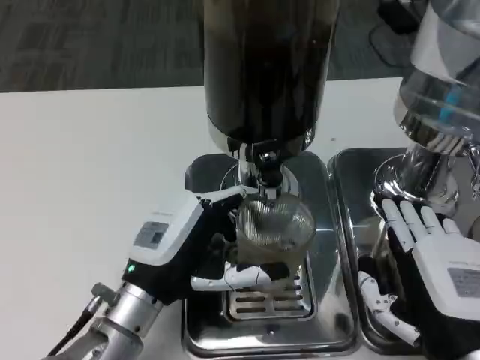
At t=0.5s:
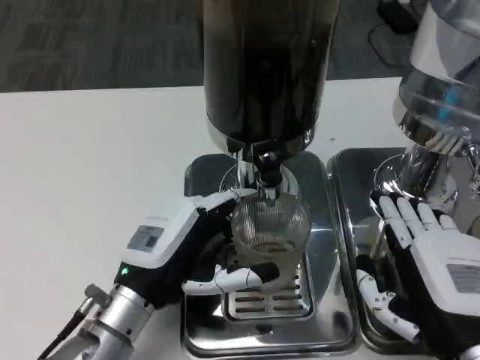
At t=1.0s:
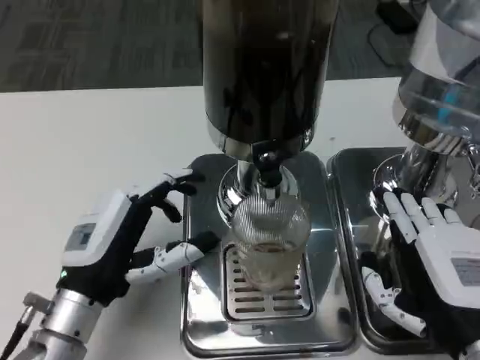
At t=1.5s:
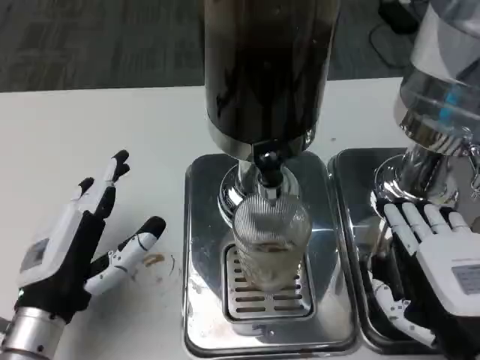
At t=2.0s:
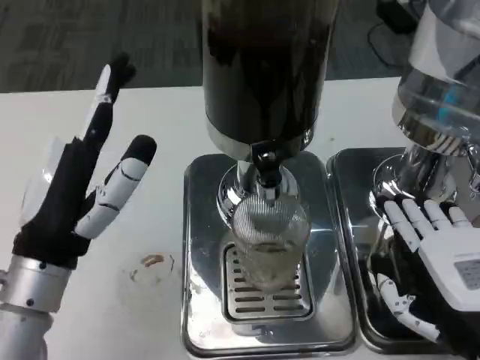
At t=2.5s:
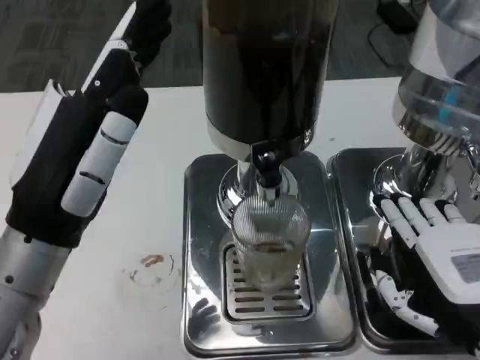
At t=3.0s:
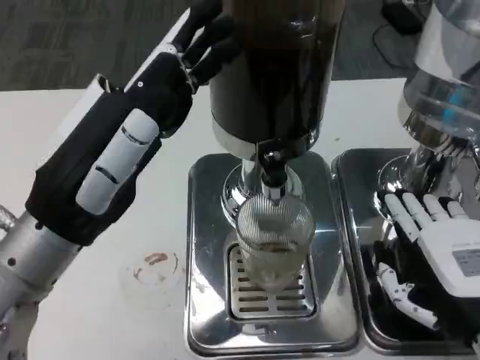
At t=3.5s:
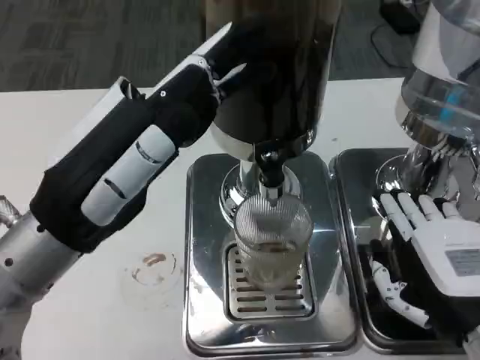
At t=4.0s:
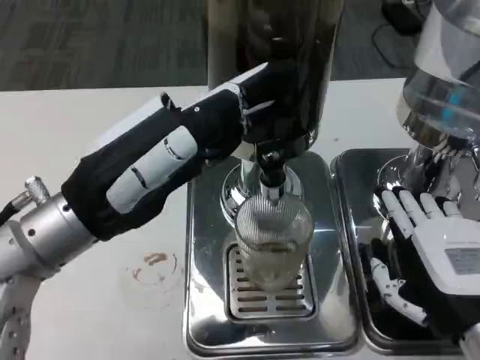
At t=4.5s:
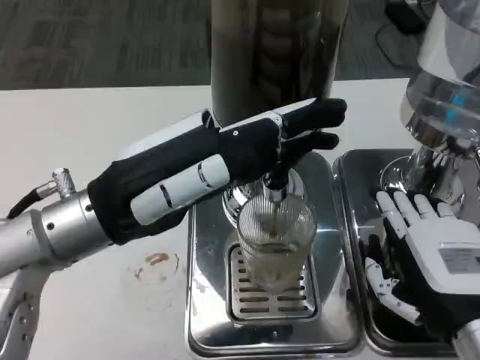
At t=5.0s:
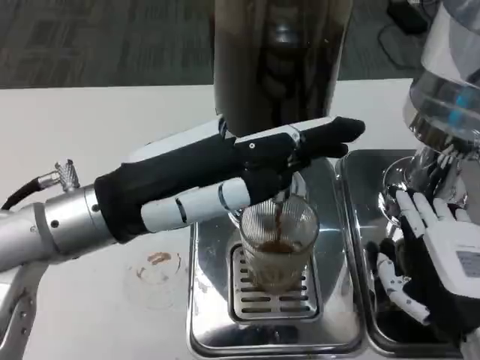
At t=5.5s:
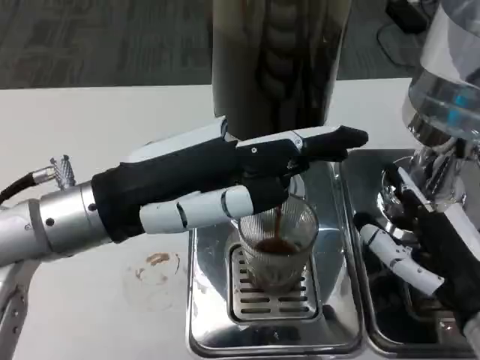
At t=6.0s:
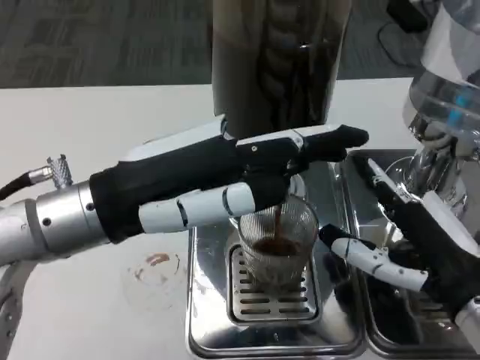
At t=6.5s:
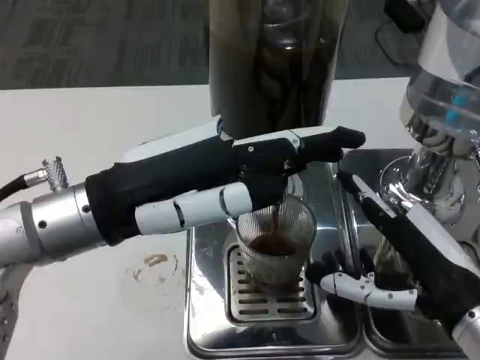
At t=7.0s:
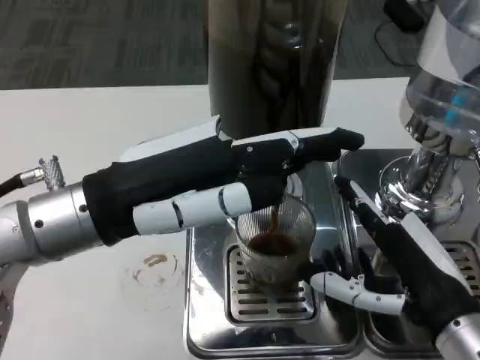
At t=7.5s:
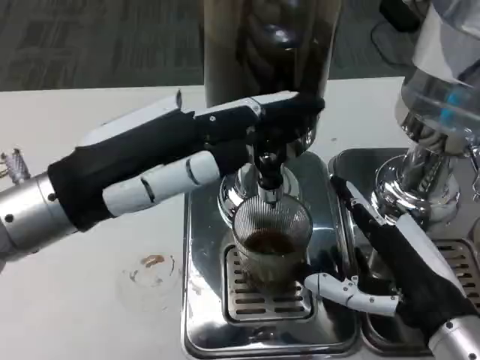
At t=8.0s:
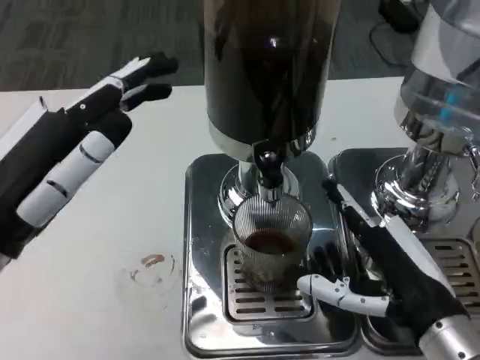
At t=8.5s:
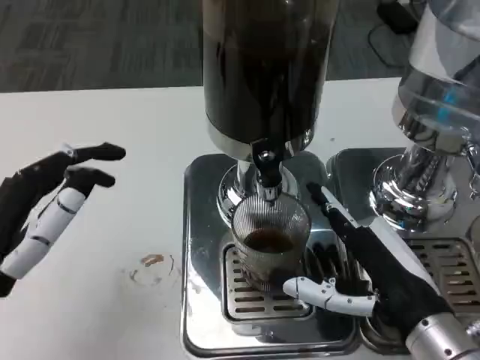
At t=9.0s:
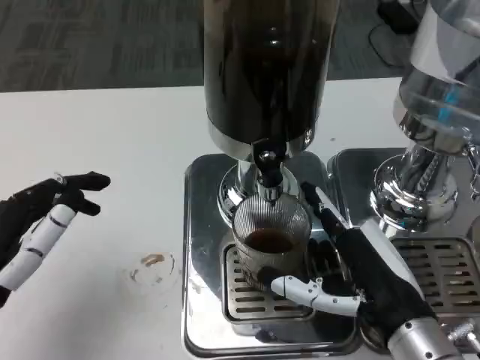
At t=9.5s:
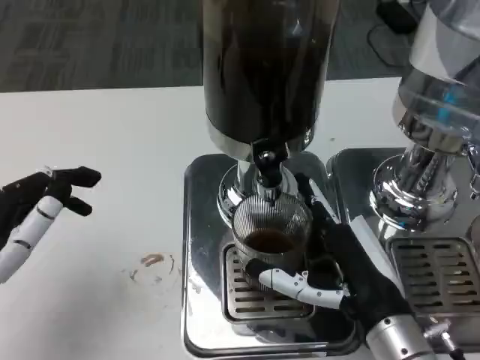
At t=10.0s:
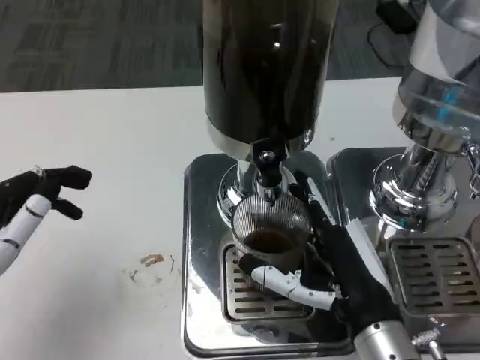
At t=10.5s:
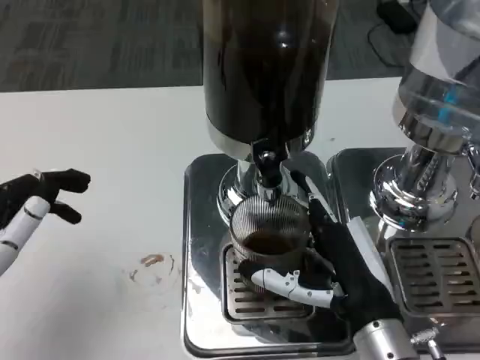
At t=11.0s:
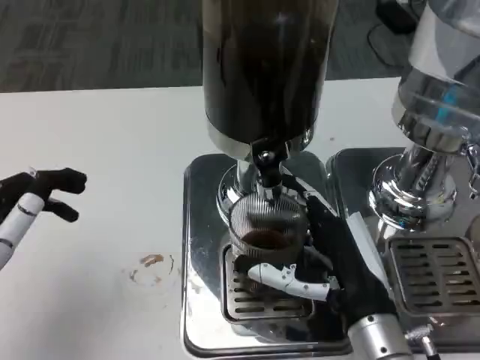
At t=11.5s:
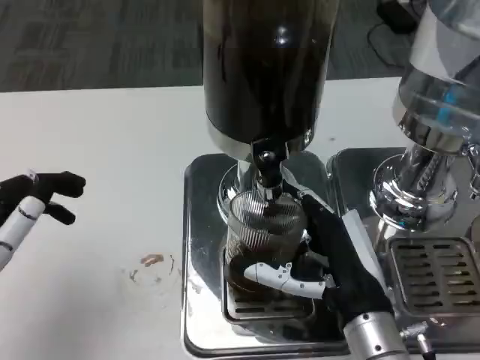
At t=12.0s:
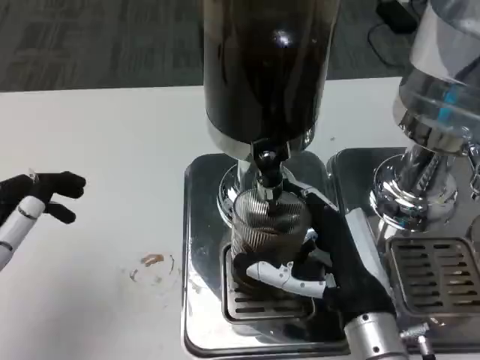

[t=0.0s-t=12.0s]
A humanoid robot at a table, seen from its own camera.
Task of the whole recording: Grasp the cup under the faucet to collect the drink, then remove the cup.
t=0.0s to t=2.0s: The left hand heads upward and to the left, covering some 10 cm.
t=2.0s to t=4.0s: The left hand moves upward, approximately 5 cm.
t=6.0s to t=8.0s: The left hand heads to the left and backward, covering roughly 10 cm.
t=8.0s to t=10.0s: The right hand moves to the left, about 5 cm; the left hand heads downward, covering roughly 5 cm.
t=10.0s to t=12.0s: The hands make only small movements.

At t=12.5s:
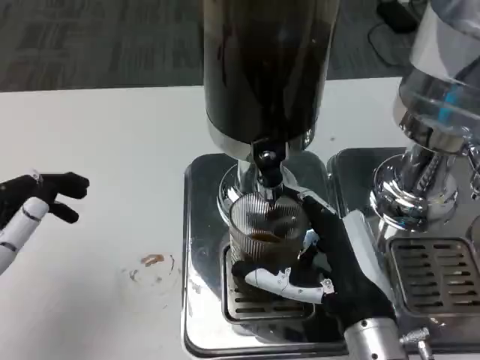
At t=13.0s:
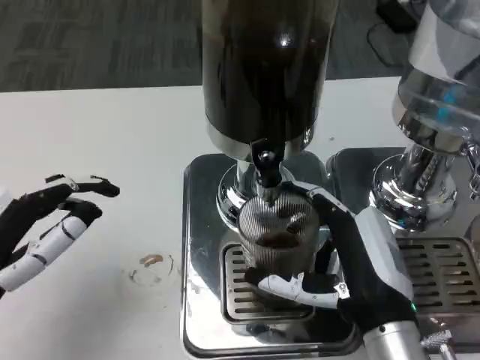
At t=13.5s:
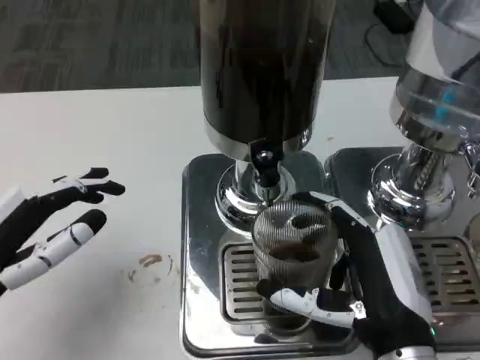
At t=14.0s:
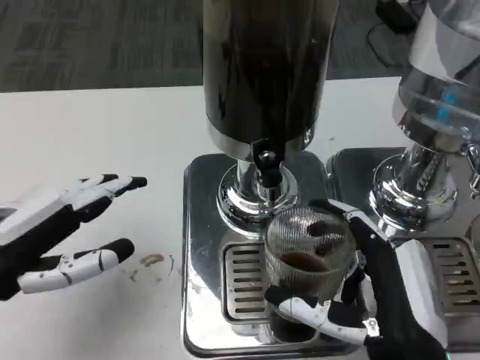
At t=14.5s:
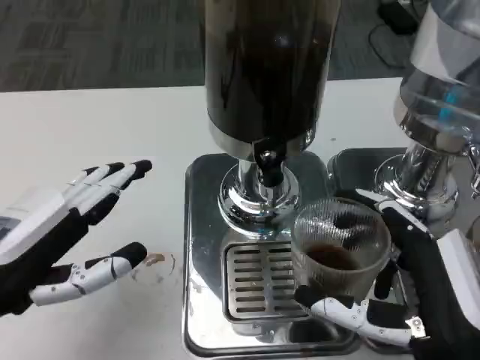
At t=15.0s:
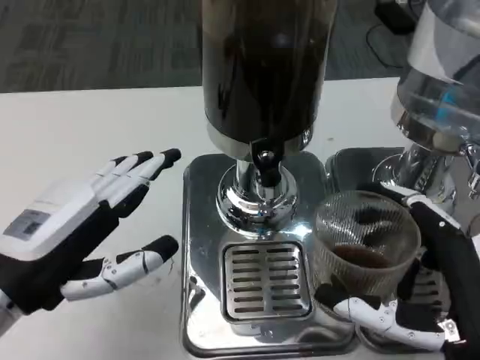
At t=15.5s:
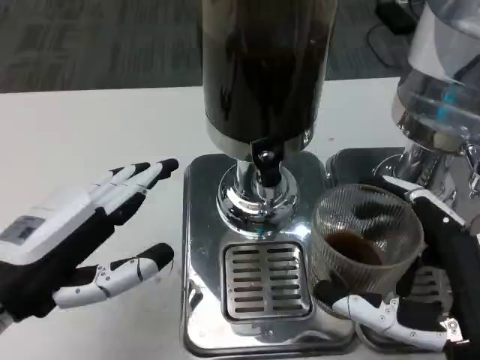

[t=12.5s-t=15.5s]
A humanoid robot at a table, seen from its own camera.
Task of the whole recording: Grasp the cup under the faucet to collect the drink, then remove the cup.
t=12.5s to t=14.0s: The right hand moves backward, roughly 5 cm.
t=14.0s to t=15.5s: The right hand goes about 5 cm upward.

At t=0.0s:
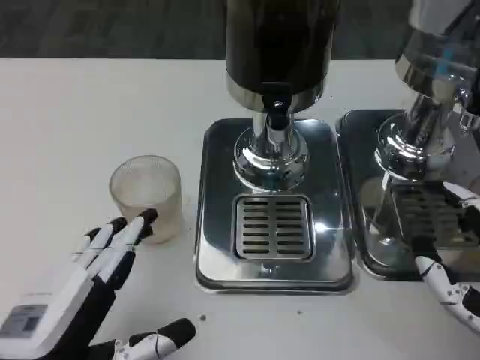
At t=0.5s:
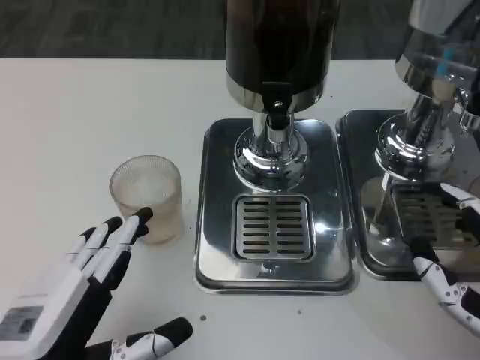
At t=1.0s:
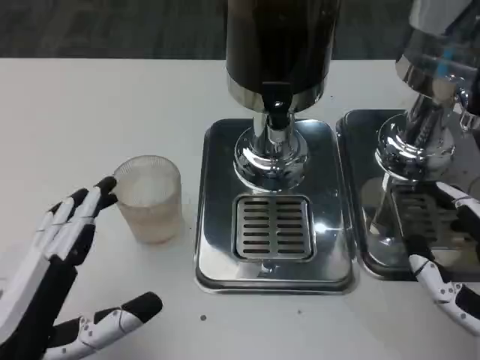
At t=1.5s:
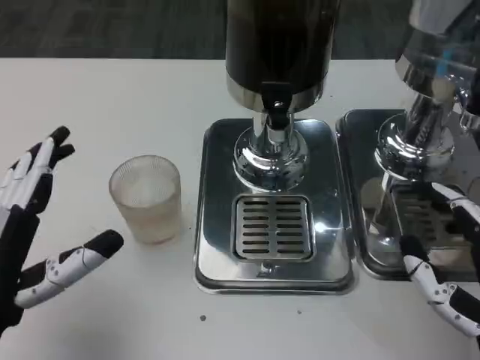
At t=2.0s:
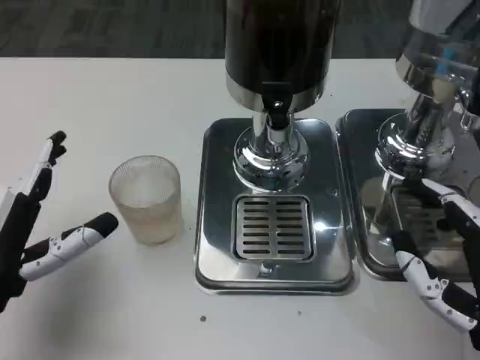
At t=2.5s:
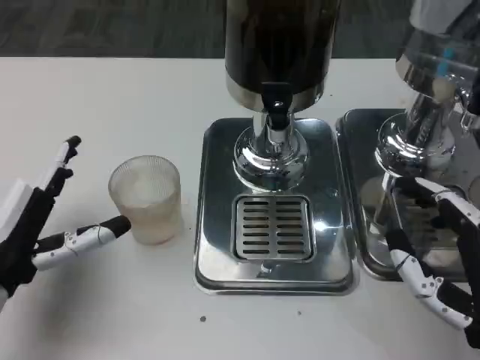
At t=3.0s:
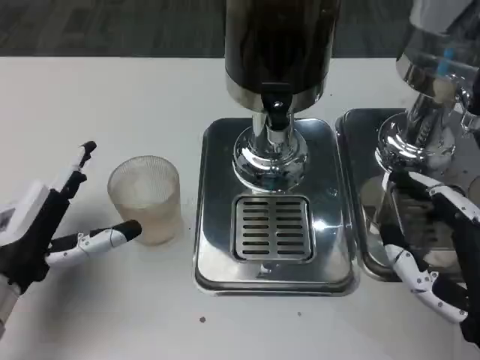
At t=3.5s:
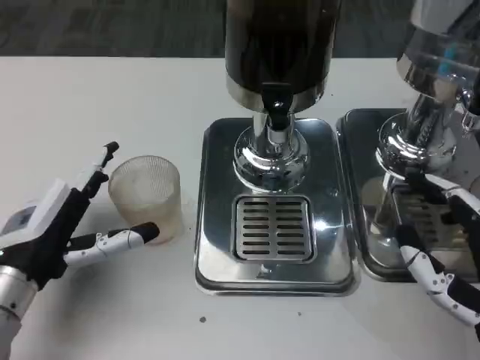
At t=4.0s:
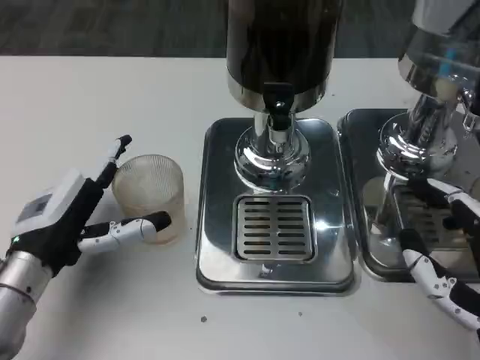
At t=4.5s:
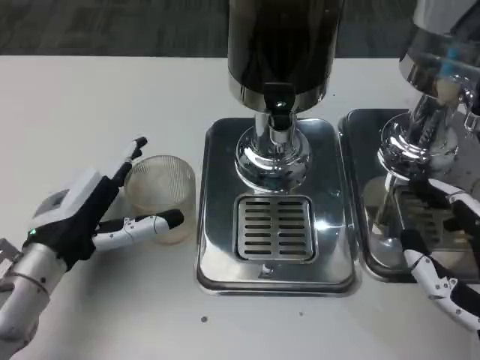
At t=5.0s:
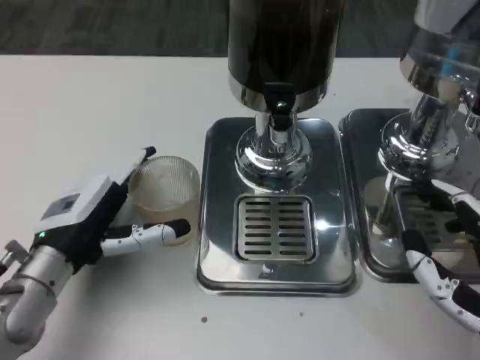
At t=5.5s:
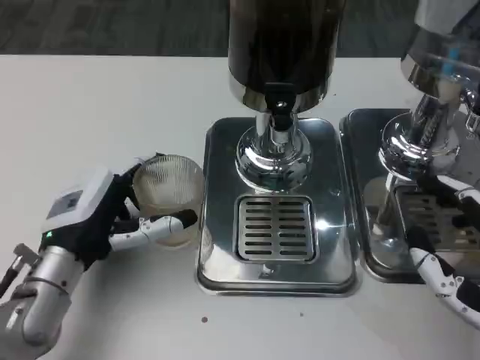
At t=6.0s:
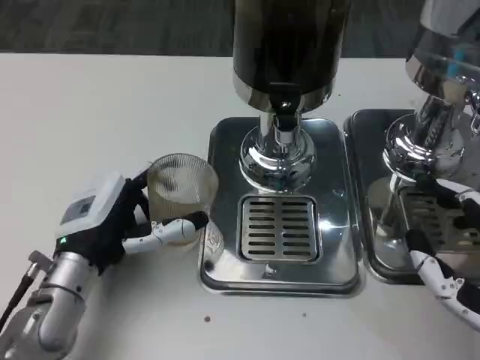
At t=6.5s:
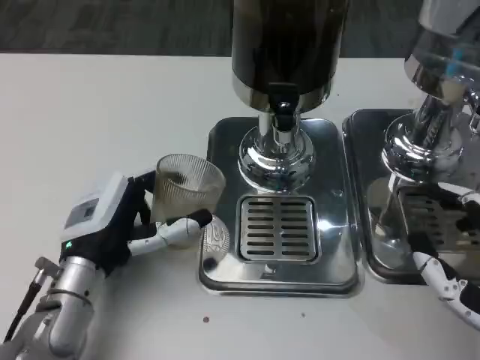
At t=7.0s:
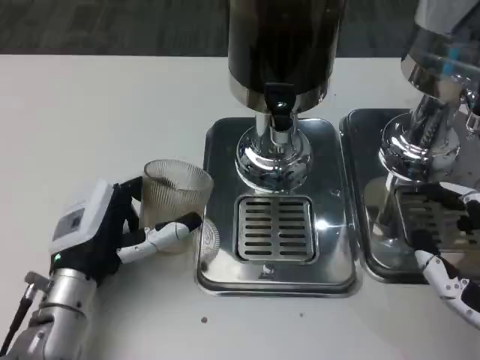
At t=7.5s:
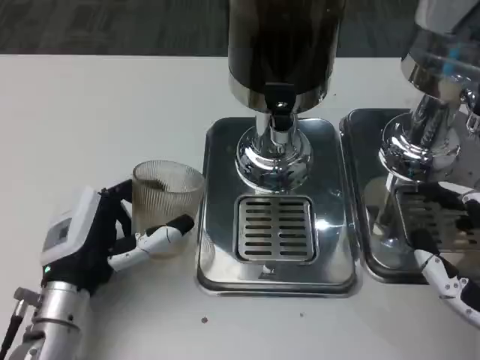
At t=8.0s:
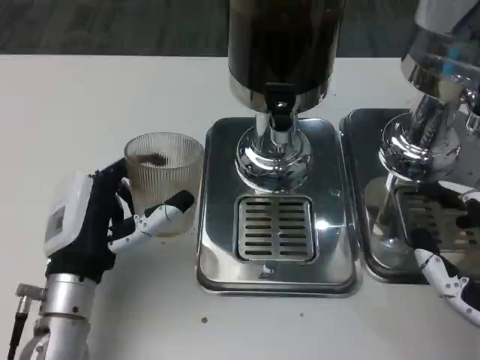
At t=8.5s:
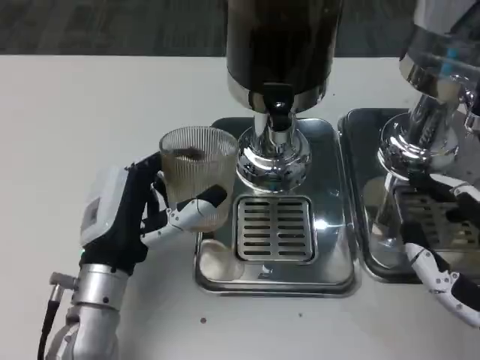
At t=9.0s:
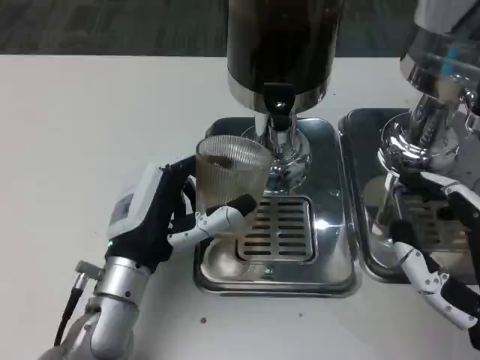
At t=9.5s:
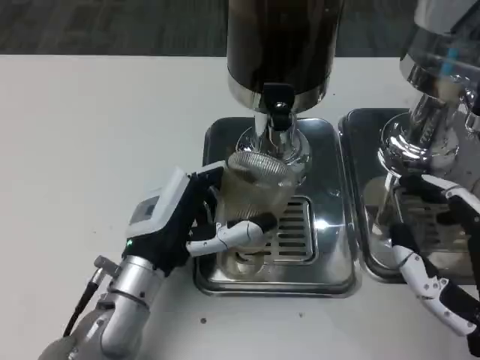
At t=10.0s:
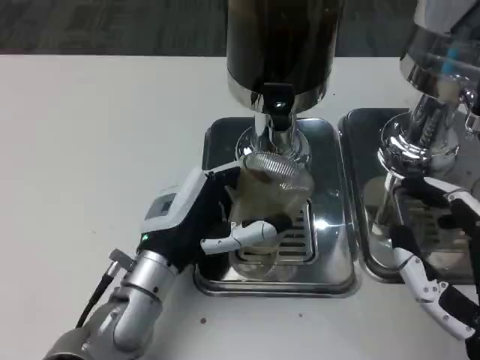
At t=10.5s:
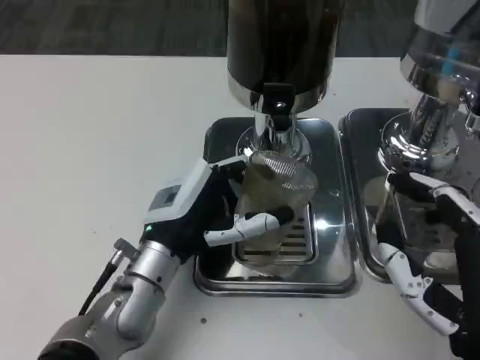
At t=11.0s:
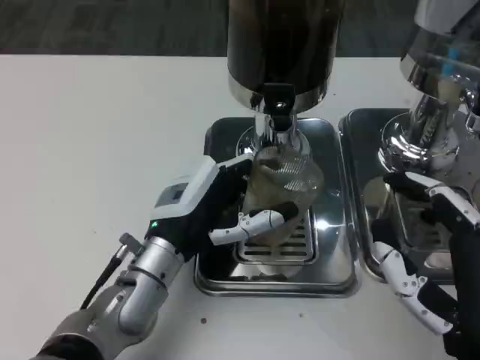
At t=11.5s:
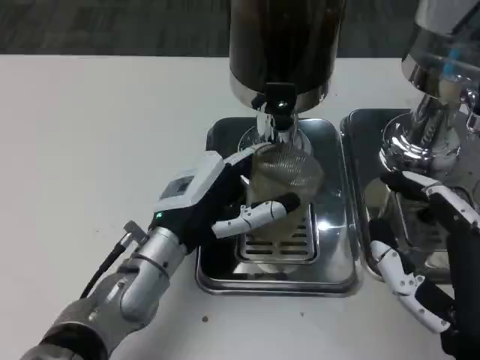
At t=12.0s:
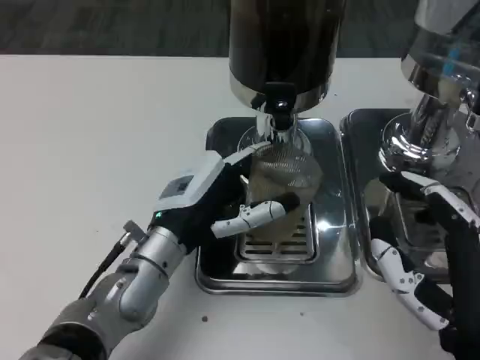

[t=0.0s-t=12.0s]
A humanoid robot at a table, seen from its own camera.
Task of the whole recording: Grasp the cup under the faucet to collect the drink, then remove the cup.
t=0.0s to t=2.0s: The left hand goes about 10 cm forward and to the left.
t=2.0s to t=4.0s: The left hand travels forward by approximately 5 cm.
t=8.0s to t=10.0s: The left hand shifts some 5 cm to the right.
